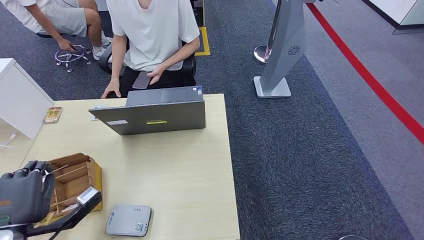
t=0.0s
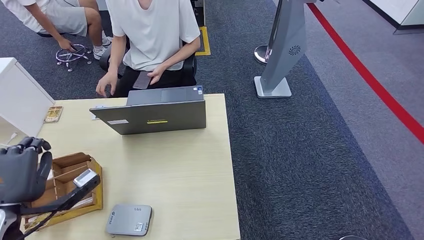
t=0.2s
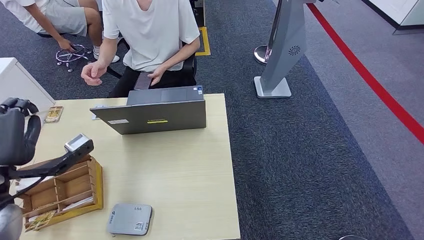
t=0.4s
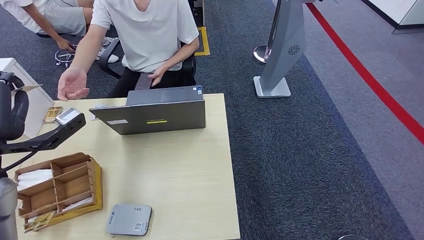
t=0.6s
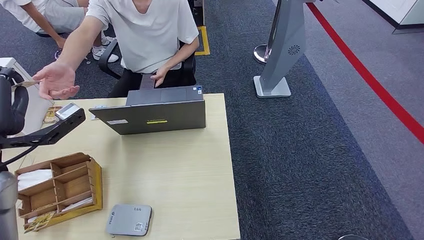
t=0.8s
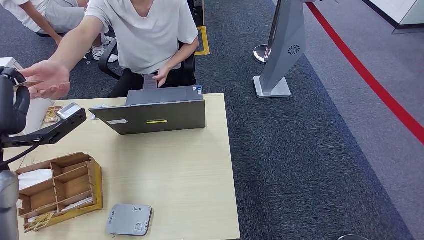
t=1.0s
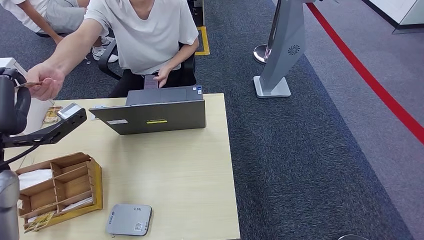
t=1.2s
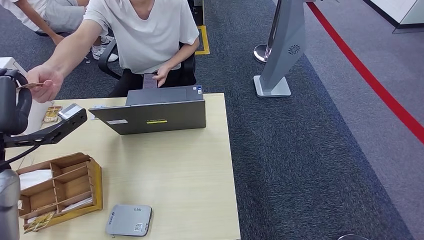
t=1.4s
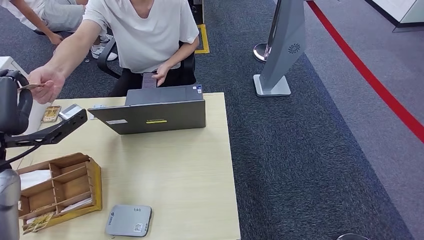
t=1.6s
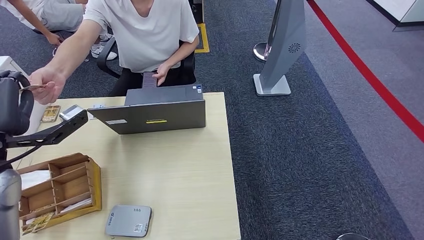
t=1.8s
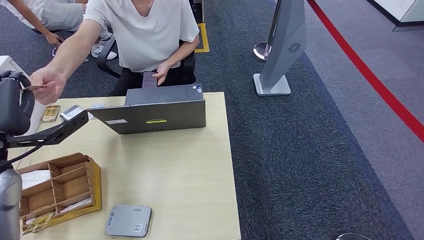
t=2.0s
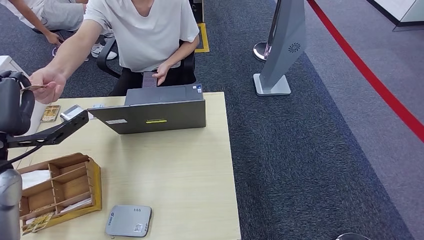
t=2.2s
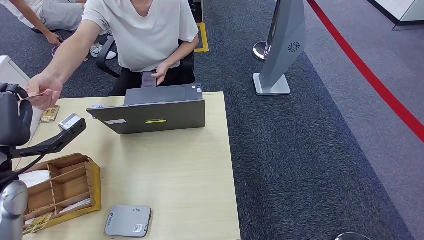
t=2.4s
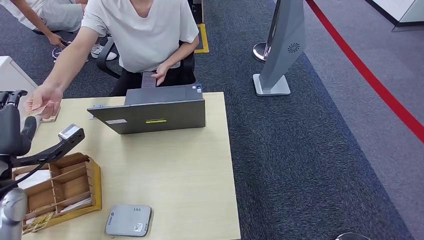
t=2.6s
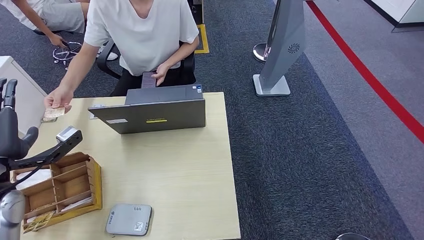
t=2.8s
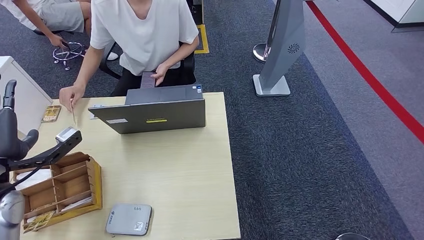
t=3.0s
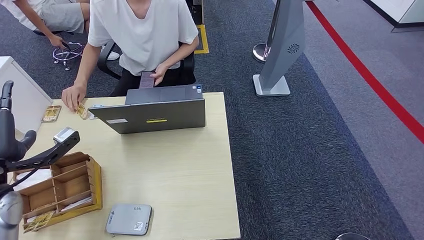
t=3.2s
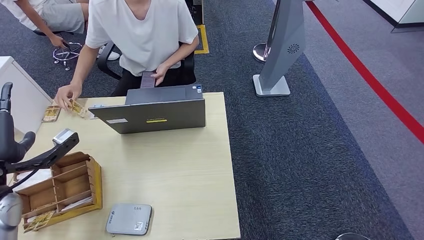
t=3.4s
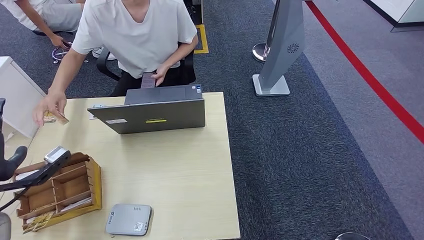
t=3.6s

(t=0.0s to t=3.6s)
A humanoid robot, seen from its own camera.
Step, t=0.8s - t=3.6s: Hand the room key to the person.
t=1.8s - t=3.6s: The left hand shifts roughly 10 cm downward and to the left.
